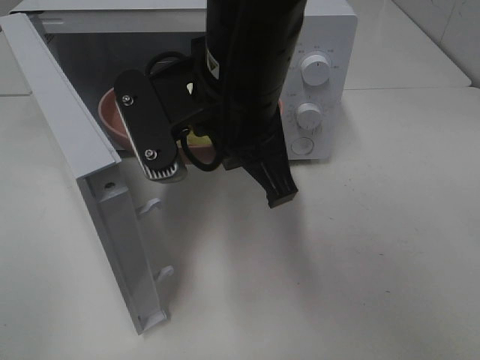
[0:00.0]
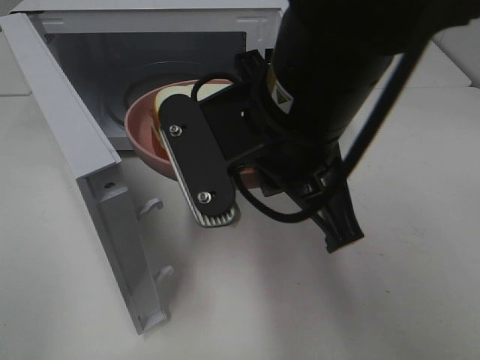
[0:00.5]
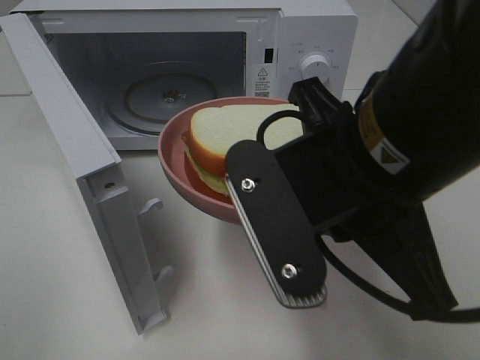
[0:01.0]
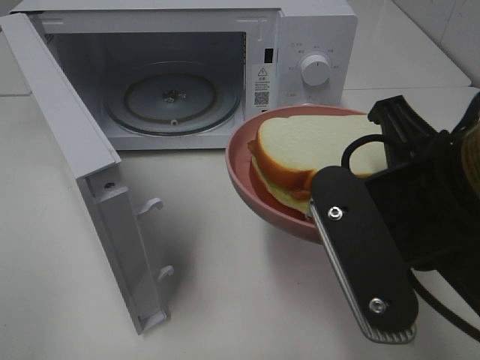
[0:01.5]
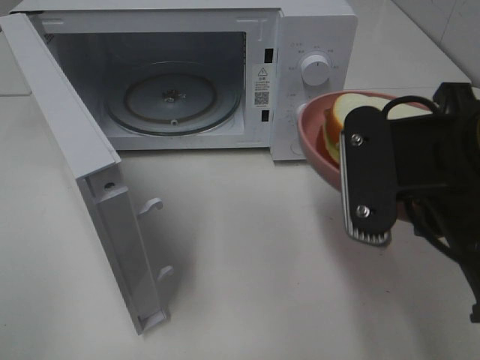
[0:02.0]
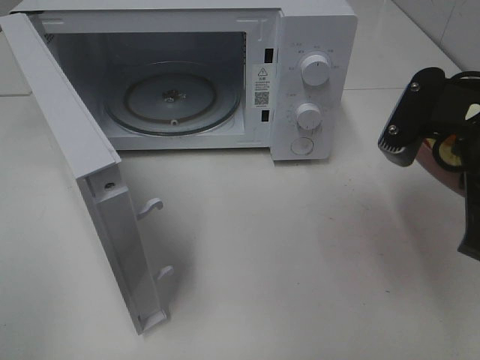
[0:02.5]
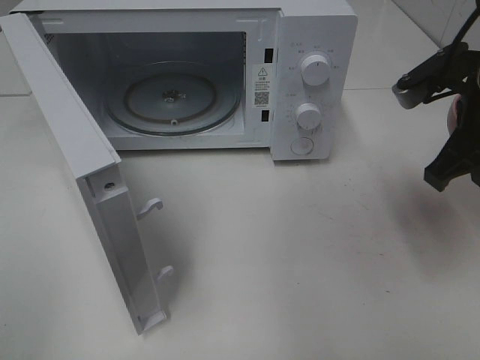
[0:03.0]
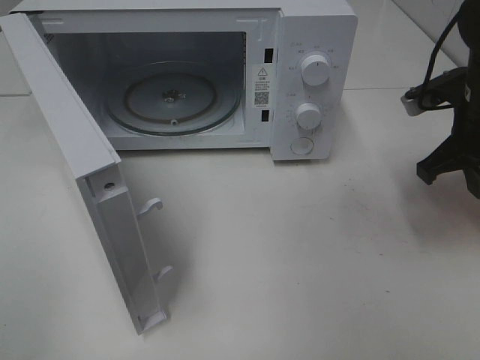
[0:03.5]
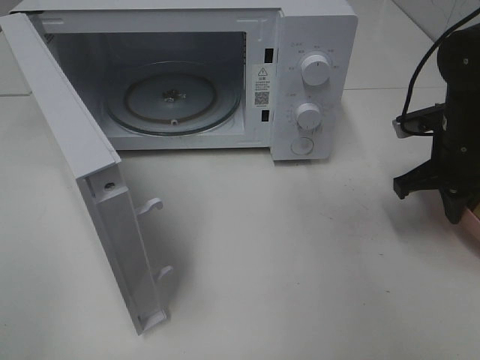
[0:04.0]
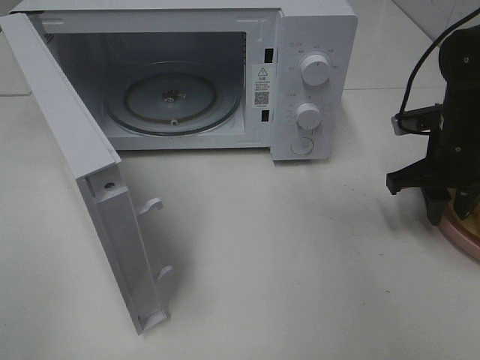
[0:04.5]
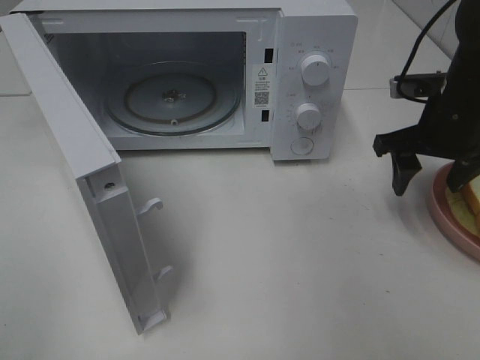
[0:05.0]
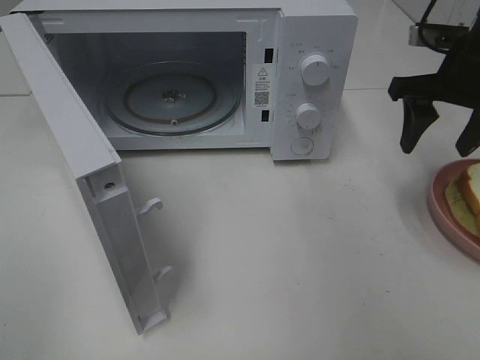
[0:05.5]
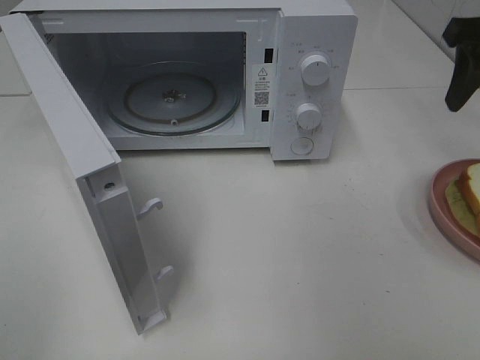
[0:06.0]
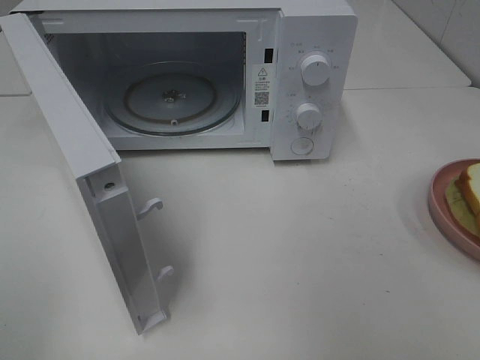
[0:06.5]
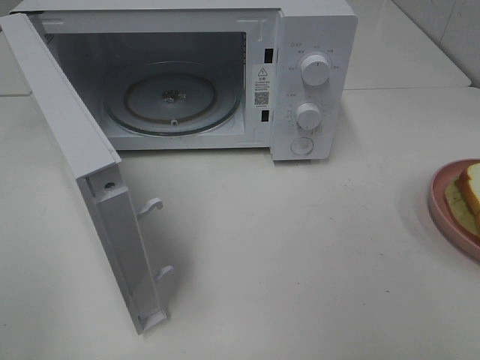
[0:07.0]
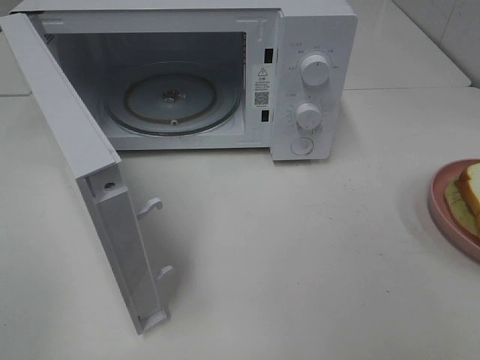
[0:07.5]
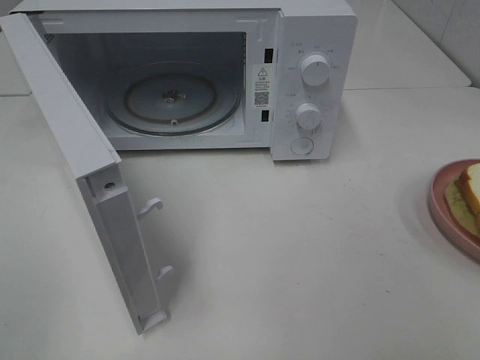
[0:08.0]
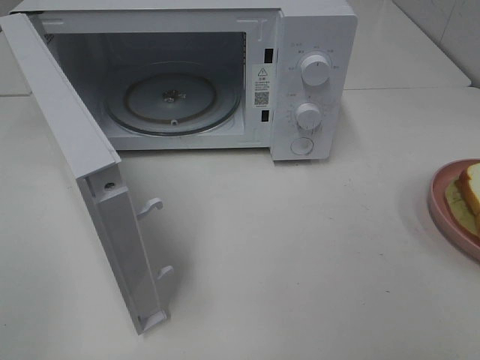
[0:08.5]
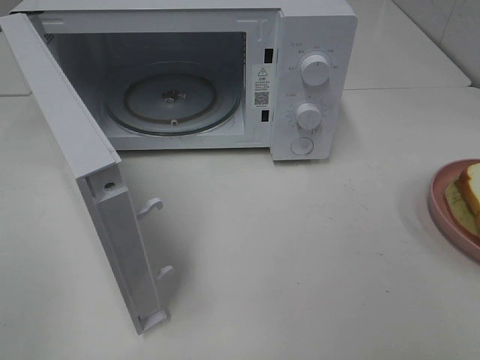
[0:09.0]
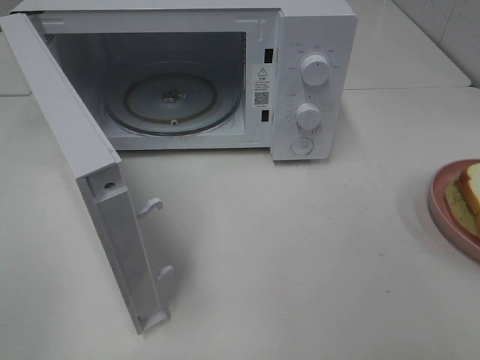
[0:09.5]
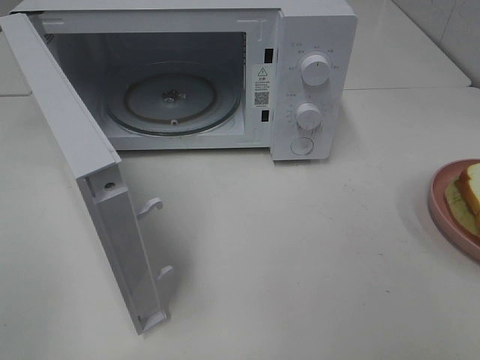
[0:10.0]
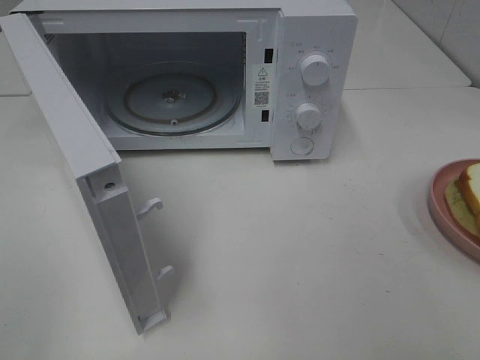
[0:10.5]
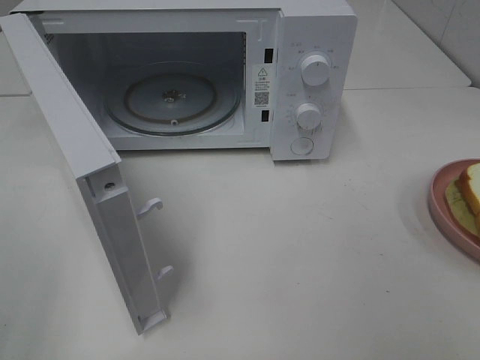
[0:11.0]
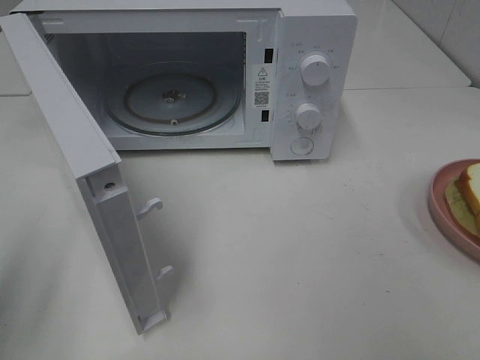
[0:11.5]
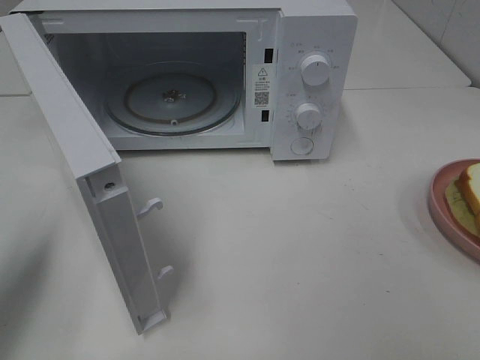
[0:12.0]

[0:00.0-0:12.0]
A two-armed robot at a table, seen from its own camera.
Task of the whole recording: Heat Sandwich.
Step, 0:00.0 to 0:06.0: Right hand: place the plate on the table.
0:00.0 to 0:02.0: The right gripper heads to the right and backward, covering about 15 cm.
0:02.0 to 0:04.0: The right gripper is displaced forward, downward and to the right by roughly 25 cm.
0:04.0 to 0:06.0: The right gripper moves upward, some 15 cm, and opens its fingers.
0:06.0 to 0:08.0: The right gripper travels backward by some 30 cm.
0:08.0 to 0:10.0: The two grippers keep their place.
0:10.0 to 0:12.0: The left gripper moves forward, approximately 15 cm, and closes.

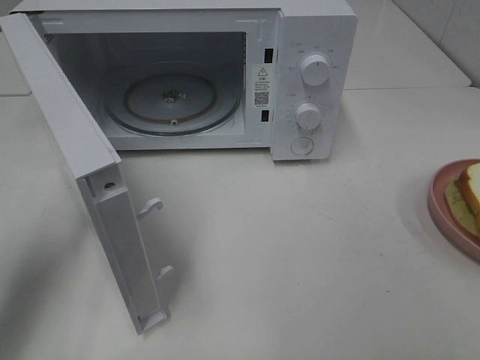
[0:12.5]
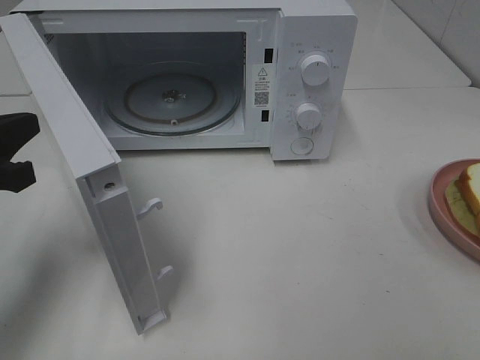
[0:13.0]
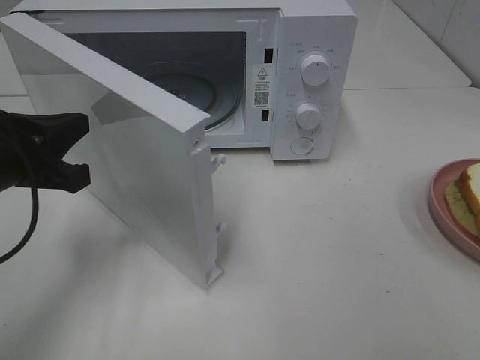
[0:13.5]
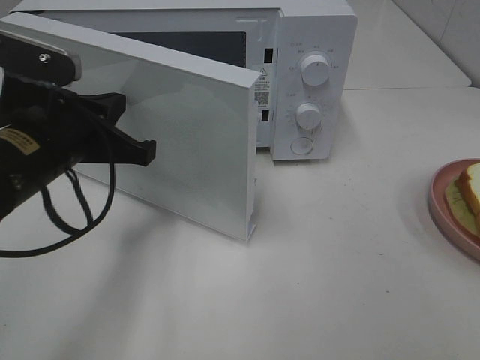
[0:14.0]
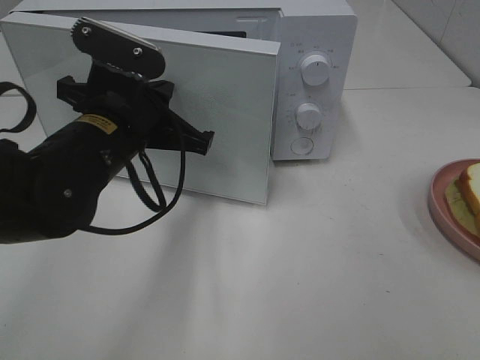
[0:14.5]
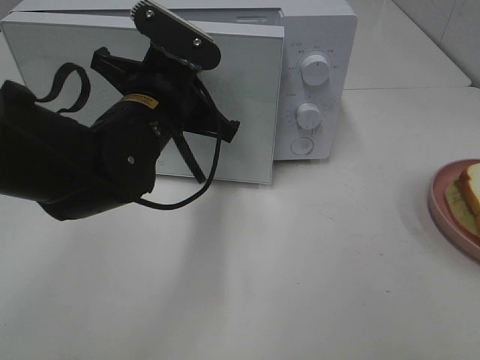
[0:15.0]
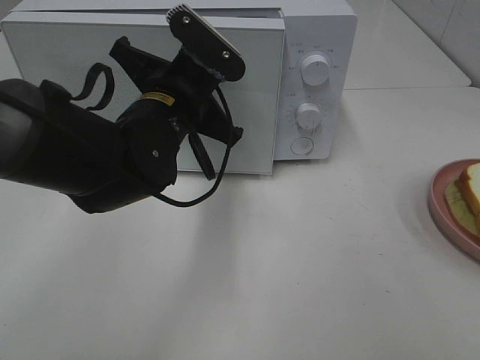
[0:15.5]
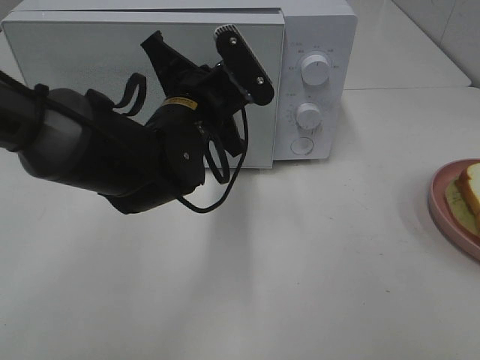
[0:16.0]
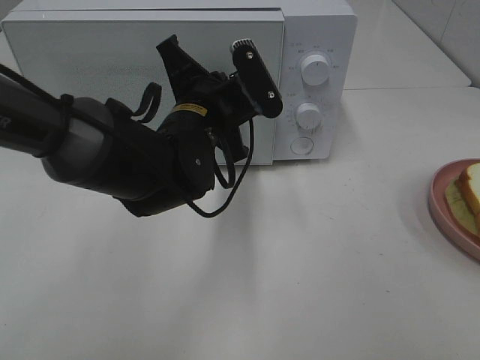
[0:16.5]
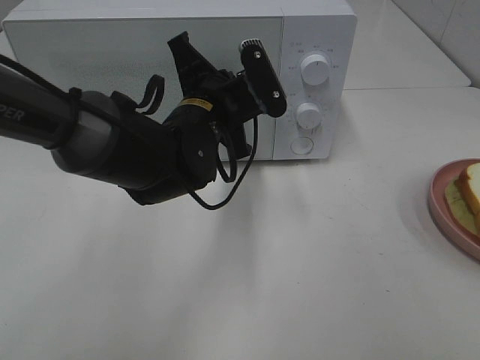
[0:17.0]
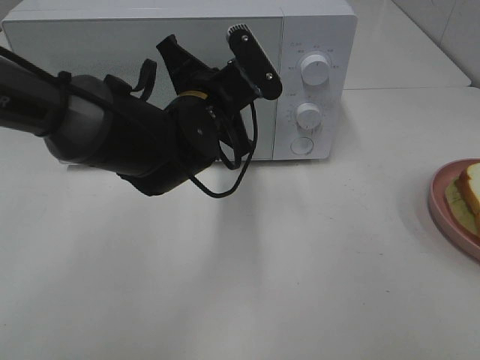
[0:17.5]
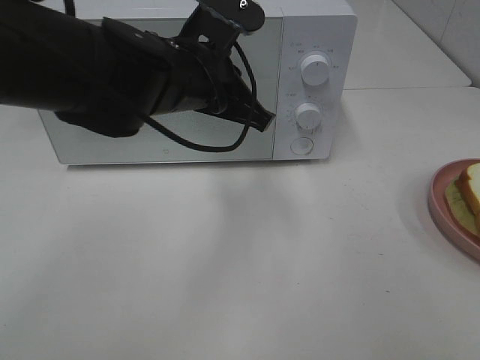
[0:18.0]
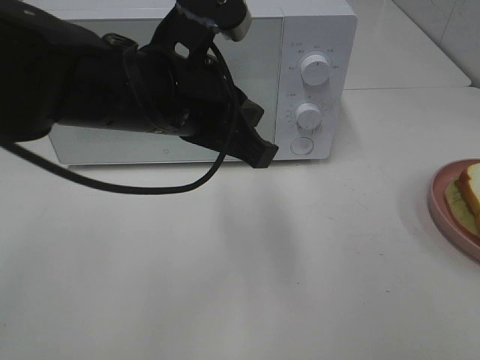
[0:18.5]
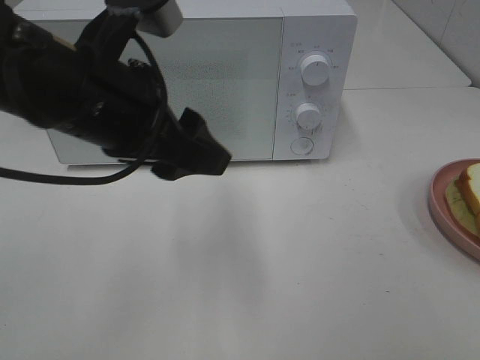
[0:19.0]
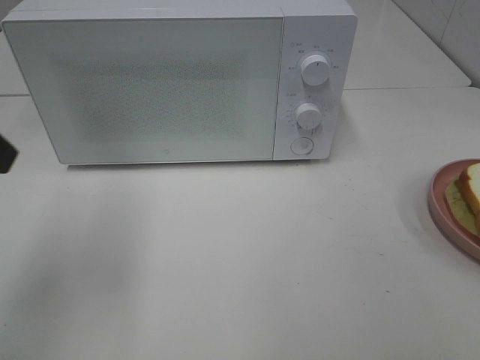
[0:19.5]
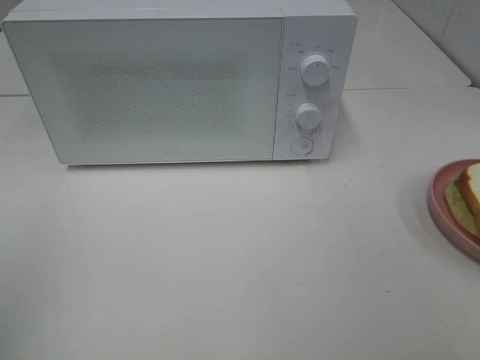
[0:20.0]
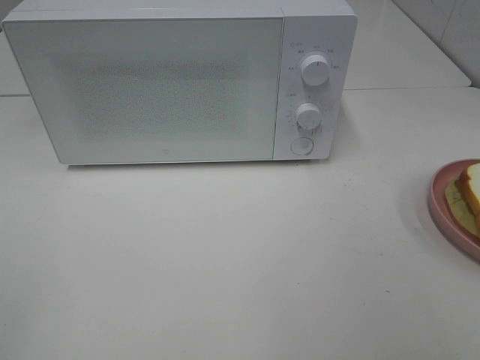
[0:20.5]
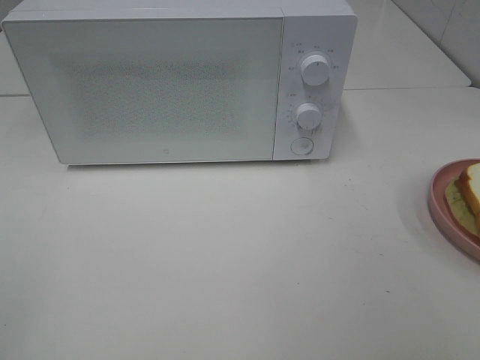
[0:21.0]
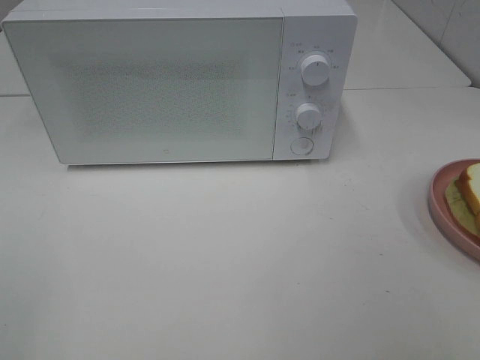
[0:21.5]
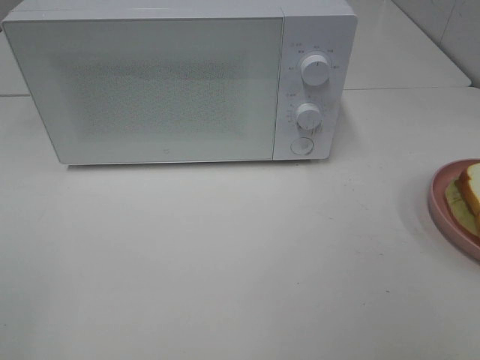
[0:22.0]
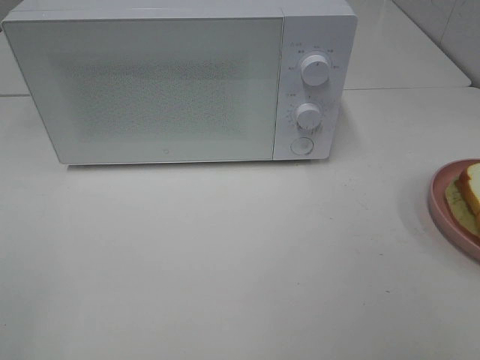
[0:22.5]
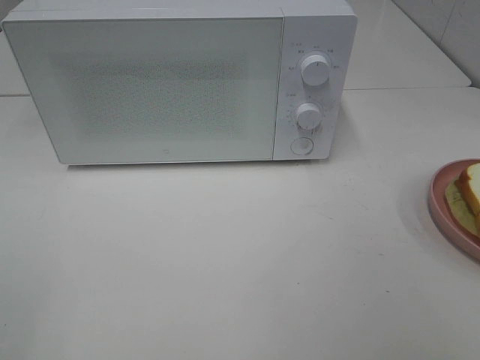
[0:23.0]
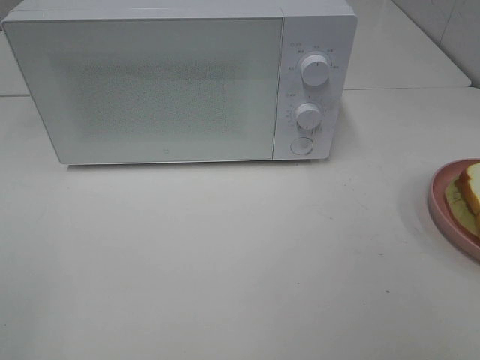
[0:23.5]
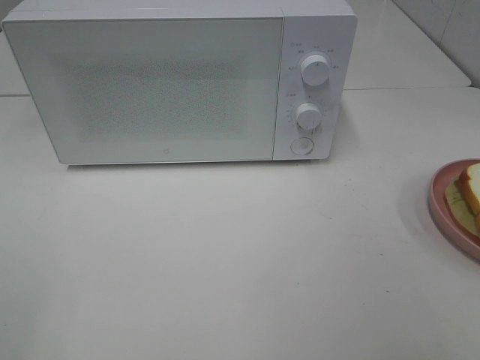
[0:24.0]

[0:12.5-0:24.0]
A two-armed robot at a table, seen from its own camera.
Task of the whole recording: Heat Sandwich.
Step, 0:12.5 to 0:18.5: Left hand: close the microwave door.
0:12.5 to 0:14.5: The left gripper is displaced to the right and forward by roughly 20 cm.
0:14.5 to 0:16.5: The left gripper moves to the right and forward, roughly 10 cm.
0:16.5 to 0:18.5: The left gripper goes roughly 10 cm upward and backward.
0:18.5 to 0:20.0: The left gripper travels to the left and backward by approximately 30 cm, and opens up.
0:22.0 to 0:24.0: The two grippers keep their place.

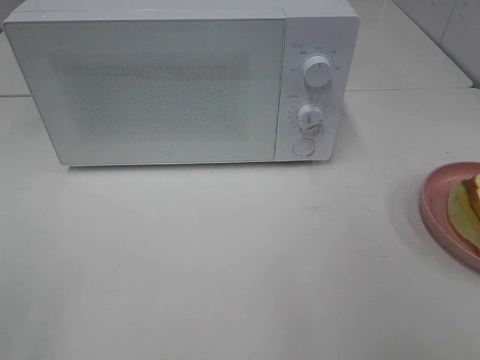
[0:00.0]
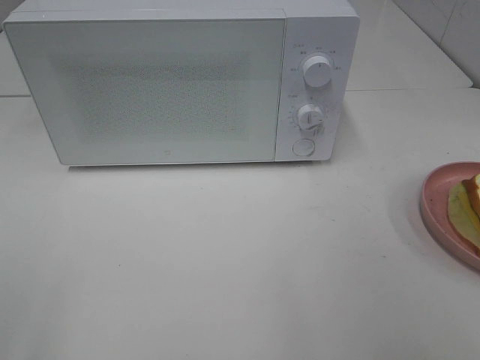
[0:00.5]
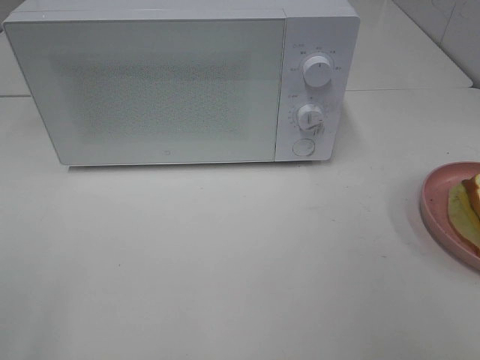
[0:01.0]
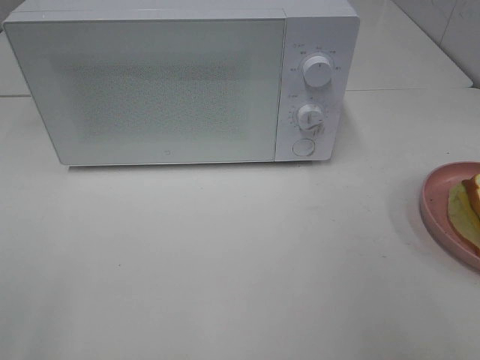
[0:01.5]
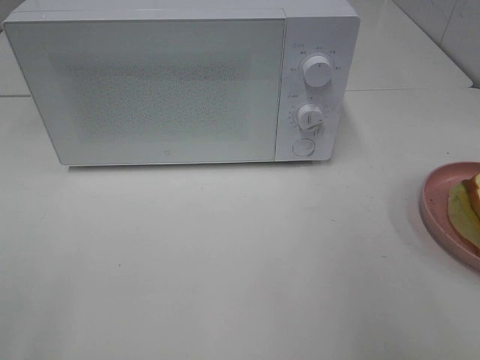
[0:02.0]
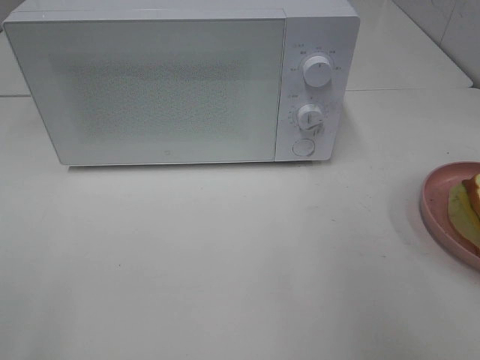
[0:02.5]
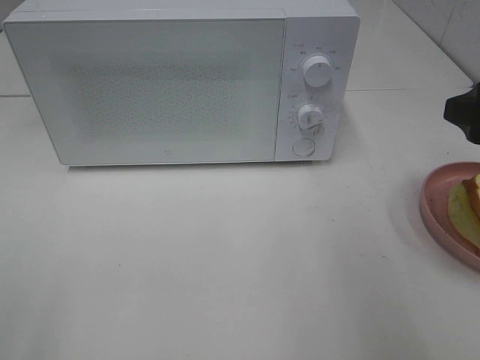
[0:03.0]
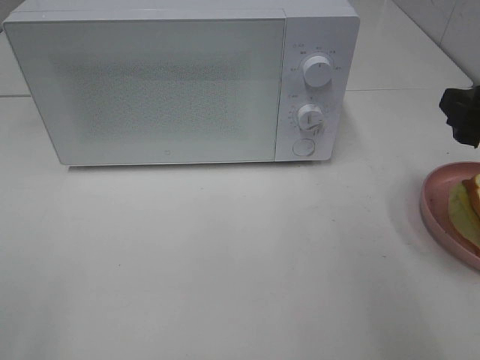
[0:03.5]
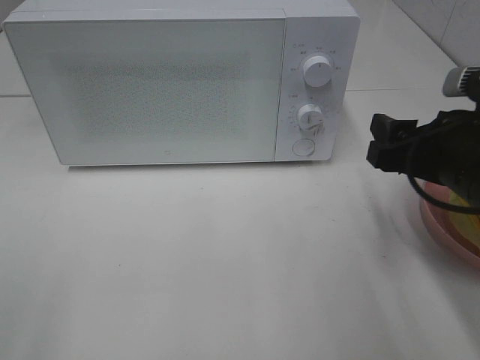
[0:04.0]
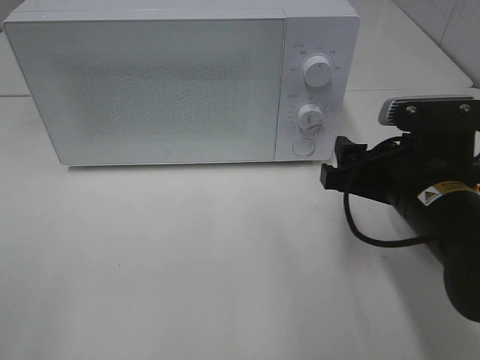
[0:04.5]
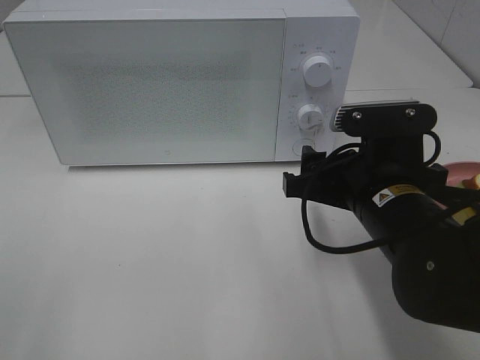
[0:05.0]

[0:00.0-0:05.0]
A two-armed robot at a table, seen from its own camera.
Task of the whole recording: Heat Sandwich.
0:02.5 to 0:05.0: The right gripper shifts roughly 20 cm to the left and downward.
